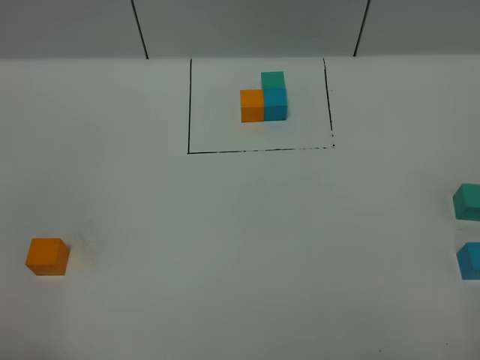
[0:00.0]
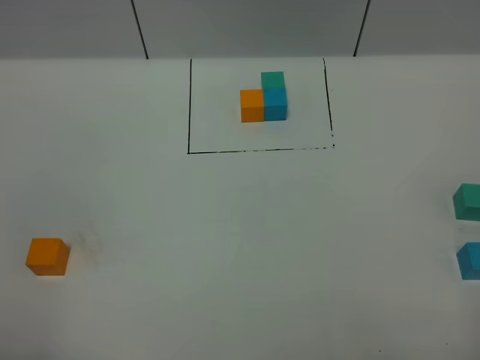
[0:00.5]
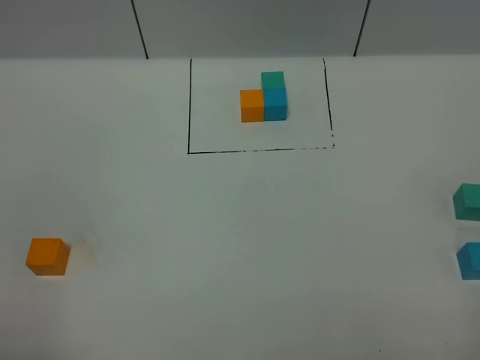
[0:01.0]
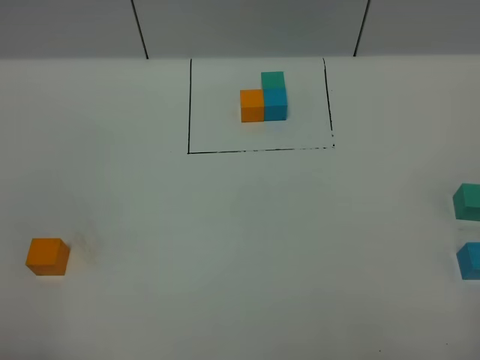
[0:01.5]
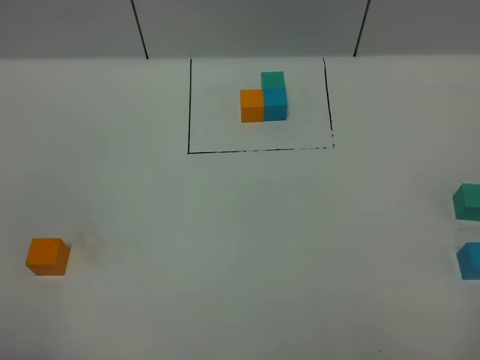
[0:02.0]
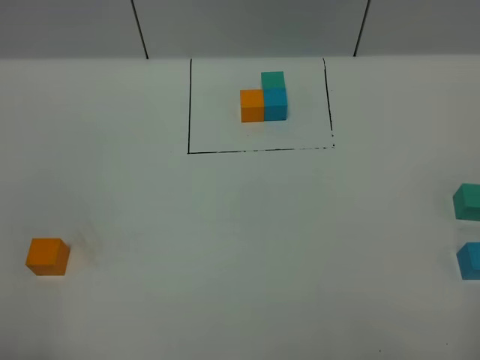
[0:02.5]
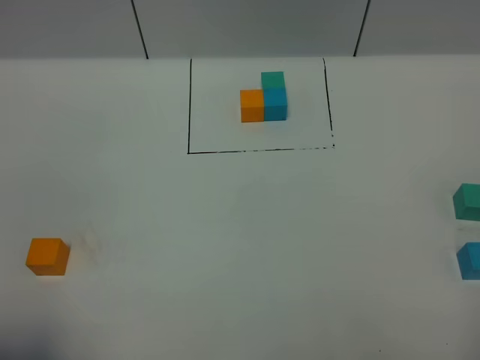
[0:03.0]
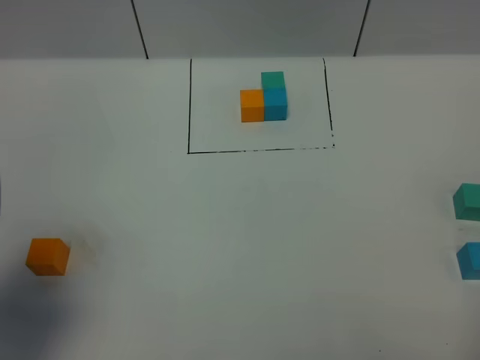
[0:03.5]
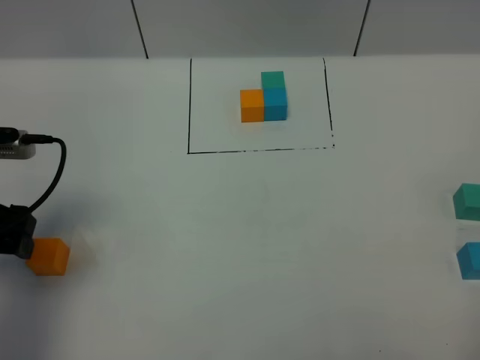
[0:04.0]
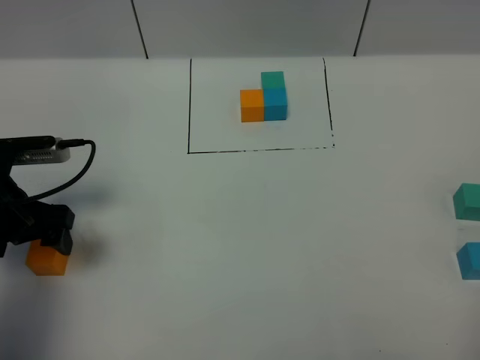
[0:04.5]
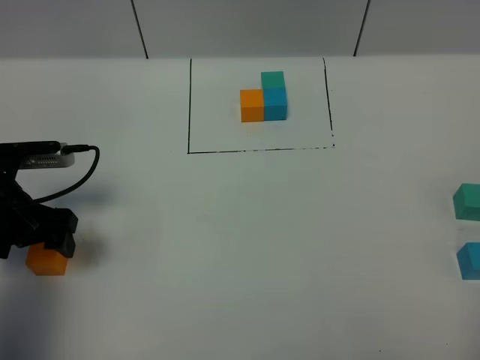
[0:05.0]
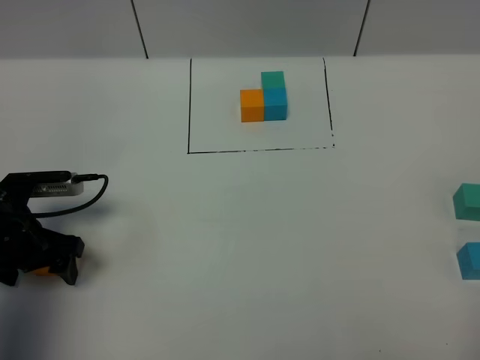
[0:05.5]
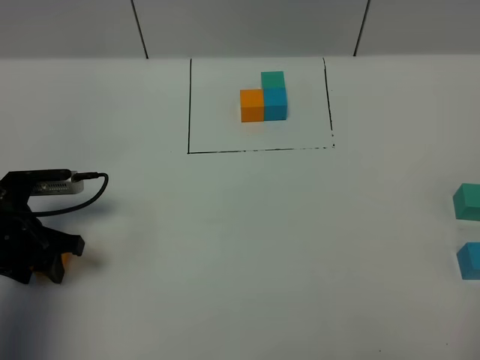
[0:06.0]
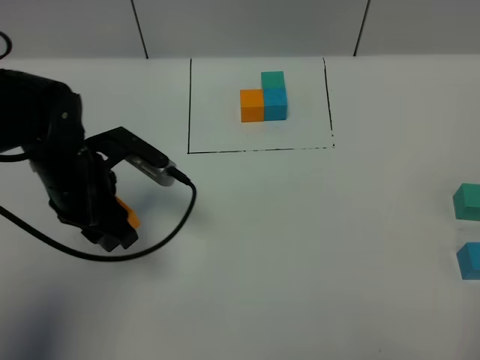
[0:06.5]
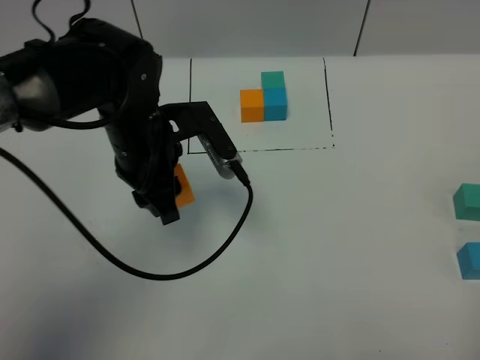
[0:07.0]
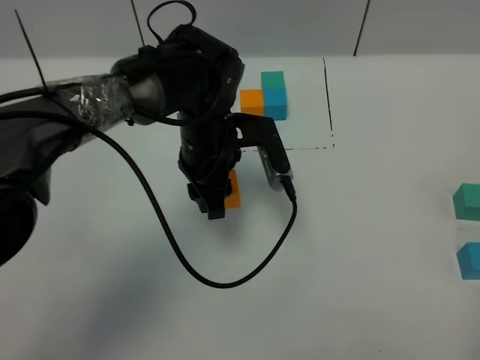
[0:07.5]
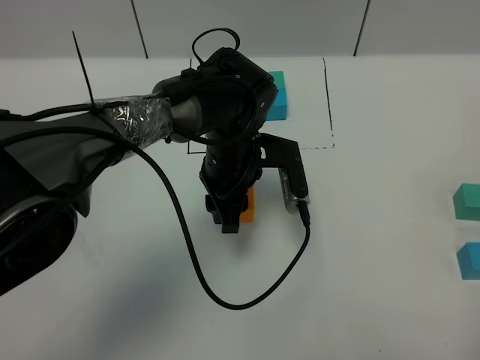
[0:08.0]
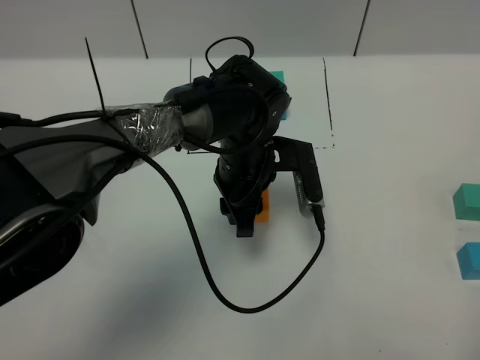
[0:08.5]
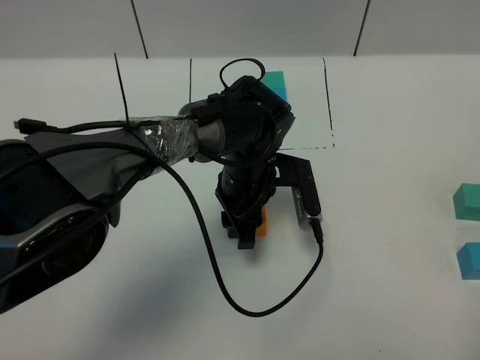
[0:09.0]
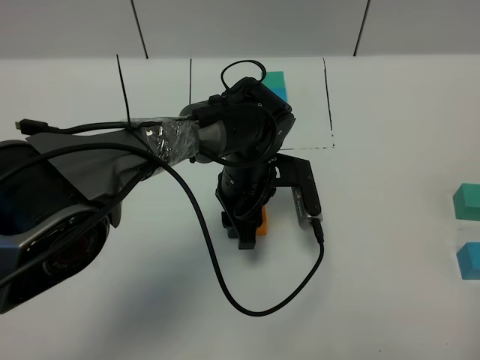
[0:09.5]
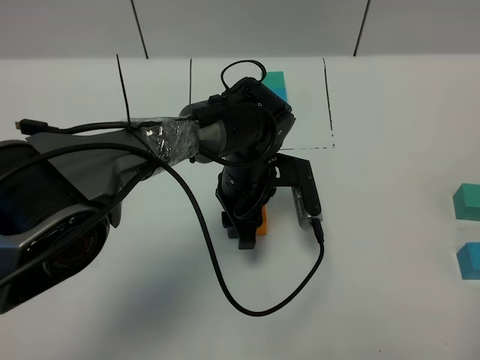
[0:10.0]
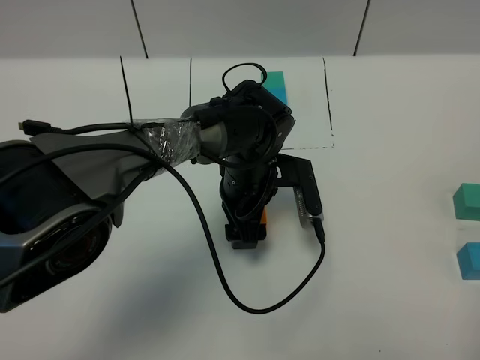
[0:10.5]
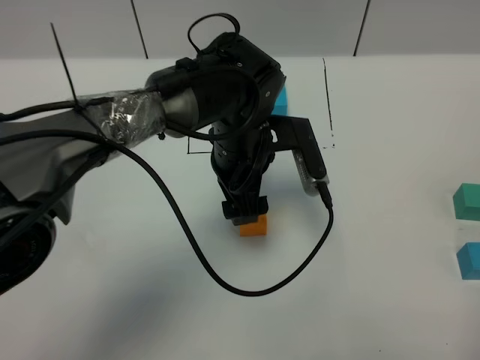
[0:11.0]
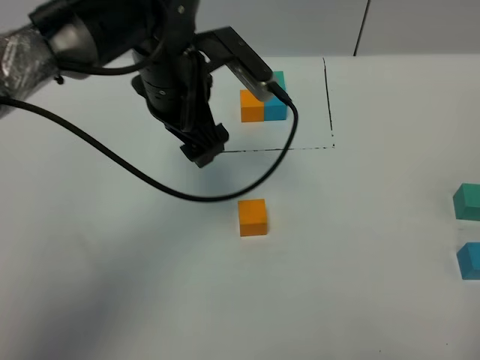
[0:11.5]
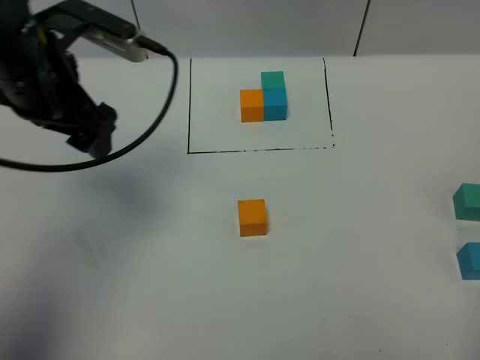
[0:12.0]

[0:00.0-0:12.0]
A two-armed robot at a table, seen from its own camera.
Task of the whole recording: According to the building block template in front, assemble the scattered blocks together.
Step, 0:00.0 to 0:10.0: Put the orange build block in the center of the table.
0:00.0 to 0:02.0: Both grippers stay put.
0:02.0 to 0:04.0: The left gripper shifts approximately 25 cm forward.
0:04.0 to 0:06.0: The left gripper shifts about 10 cm downward, and closes.
0:06.0 to 0:08.0: The left gripper shifts some 30 cm to the right.
0:08.0 to 0:10.0: The grippers move only a little.
0:10.0 to 0:12.0: The left gripper is displaced to the left and upward by roughly 30 cm, and opens.

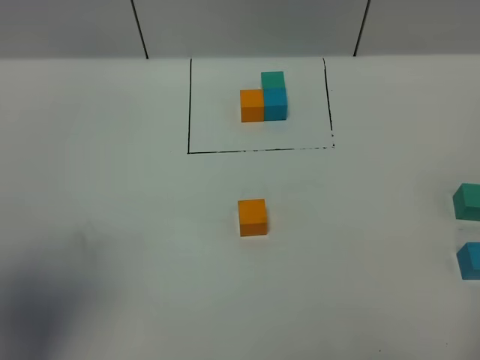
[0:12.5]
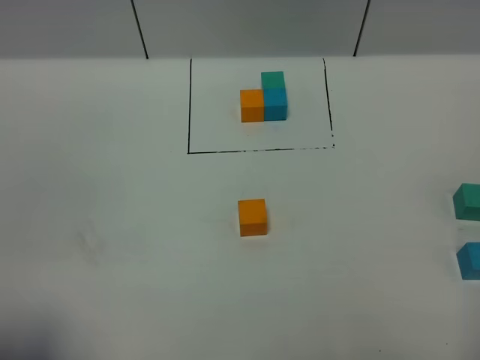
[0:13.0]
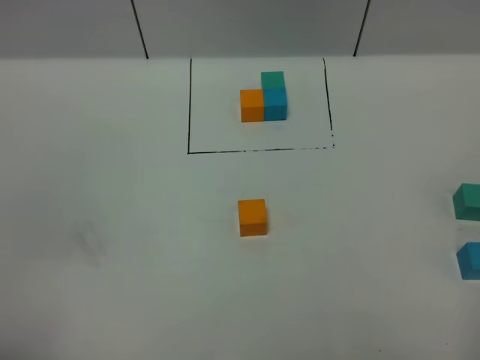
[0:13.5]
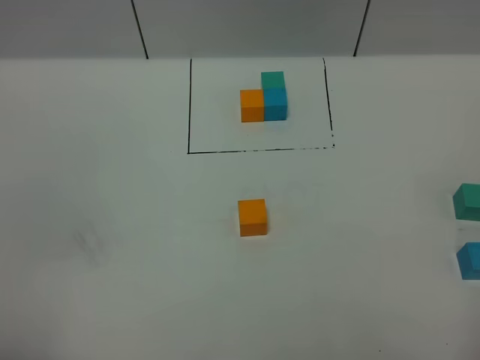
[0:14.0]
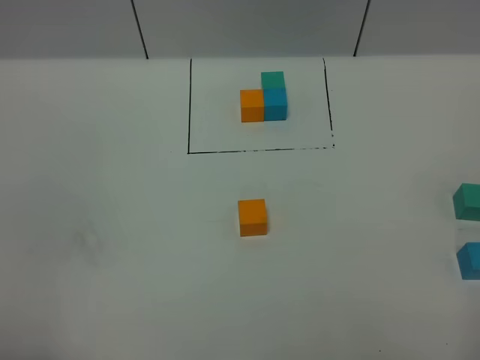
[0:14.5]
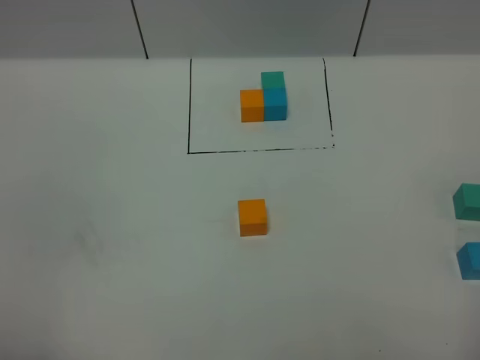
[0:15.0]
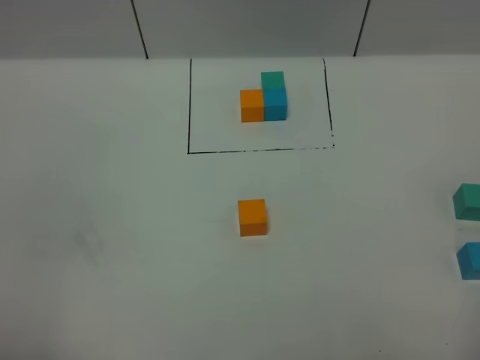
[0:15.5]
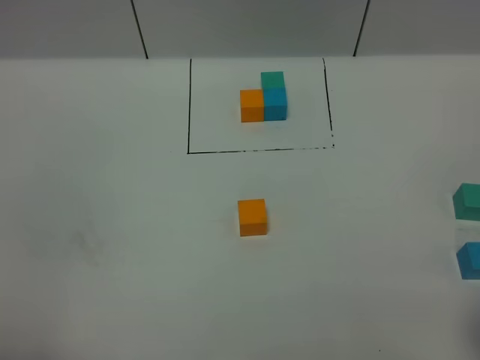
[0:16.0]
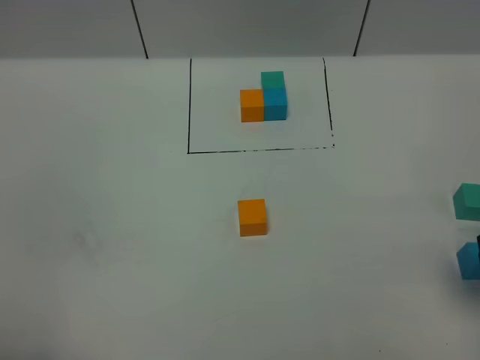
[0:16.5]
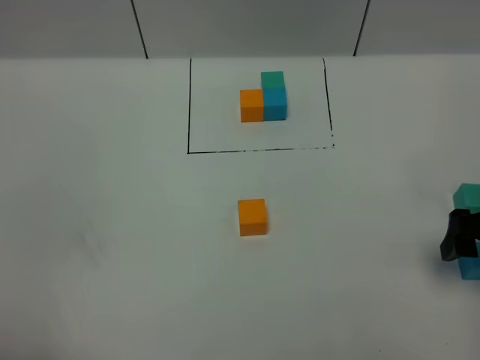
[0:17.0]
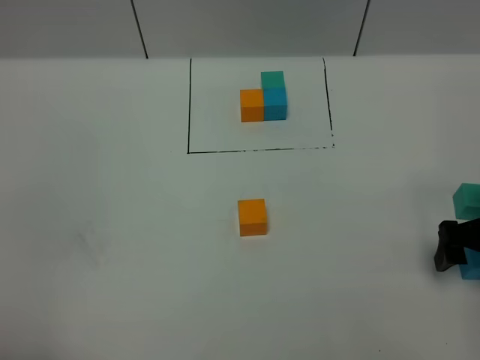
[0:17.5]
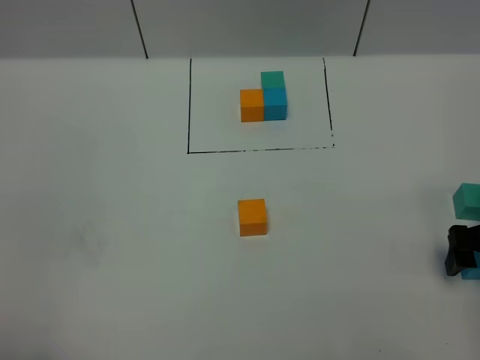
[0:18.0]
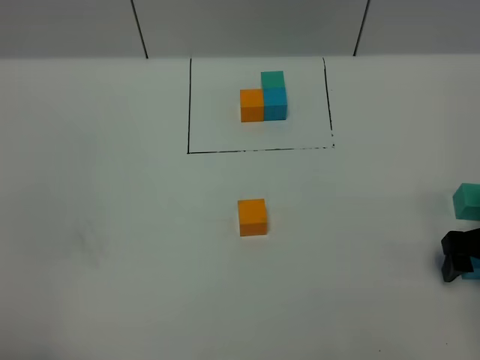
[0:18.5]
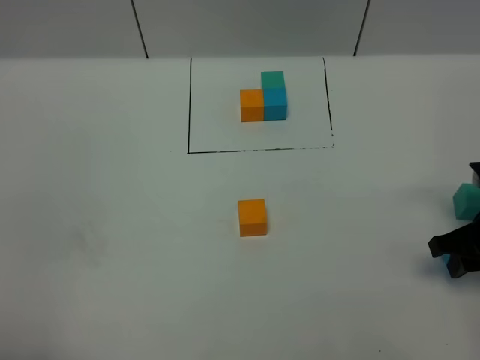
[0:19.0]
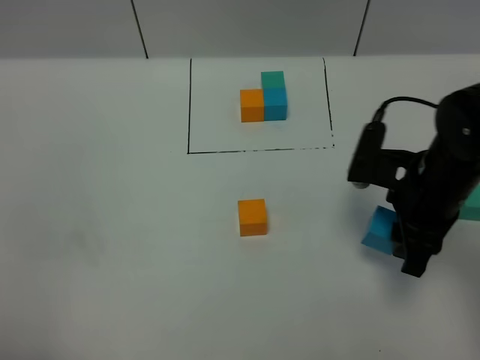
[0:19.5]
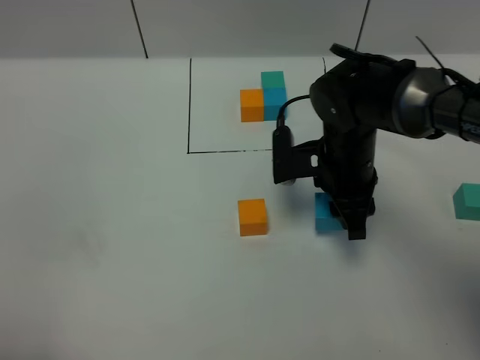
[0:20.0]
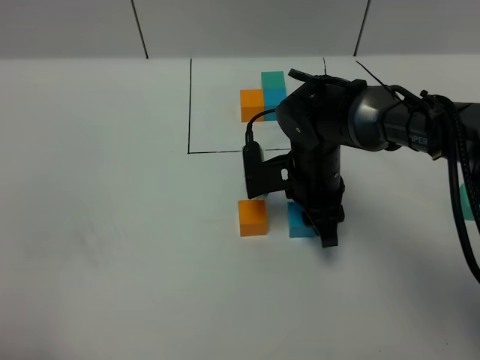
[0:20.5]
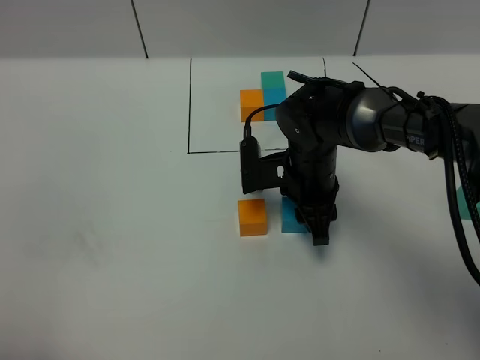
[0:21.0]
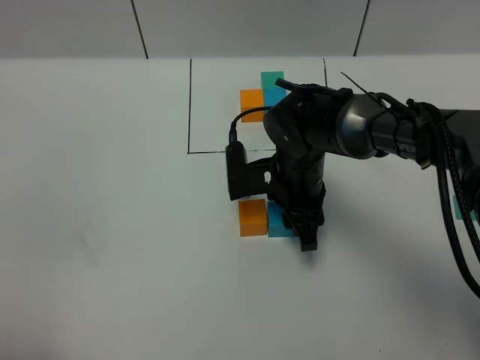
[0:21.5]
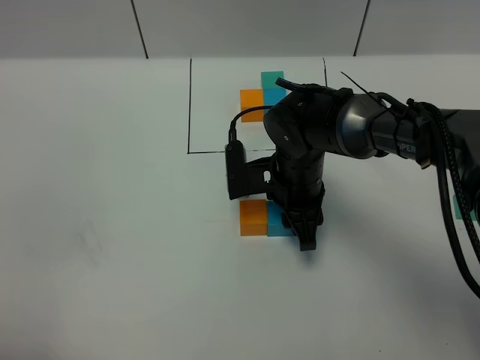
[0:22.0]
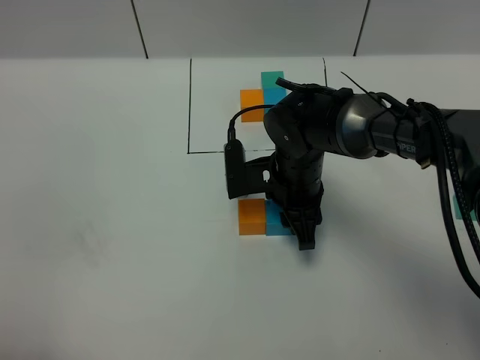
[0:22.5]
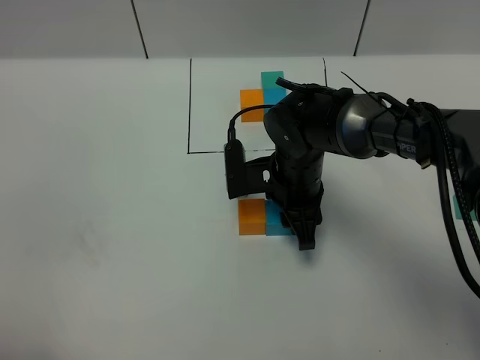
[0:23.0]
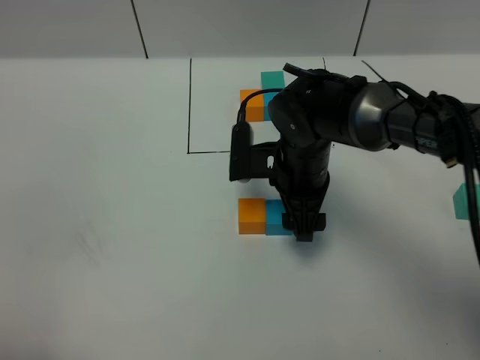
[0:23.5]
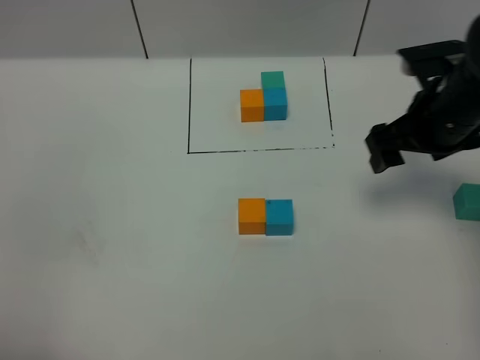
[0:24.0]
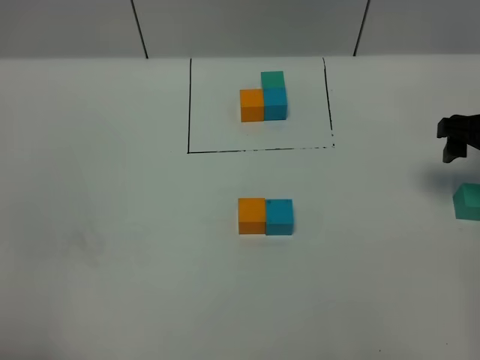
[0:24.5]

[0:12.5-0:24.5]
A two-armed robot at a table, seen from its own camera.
Task of the whole recording: According to the building block template in front, assemble the scattered blocks together.
Step, 0:12.5 to 0:23.0: Put the blue build block on the right of the orange build block.
0:12.5 to 0:14.5: The left gripper travels backward and downward by roughly 15 cm.
0:14.5 to 0:16.5: The right gripper heads forward, covering some 20 cm.
0:16.5 to 0:18.5: The right gripper travels downward and forward by about 15 cm.
0:18.5 to 0:20.5: The right gripper moves to the left and forward, about 25 cm, and closes its fingers.
0:20.5 to 0:22.5: There are only small adjustments of the grippers.
0:22.5 to 0:24.5: The right gripper moves to the right, approximately 25 cm, and opens.

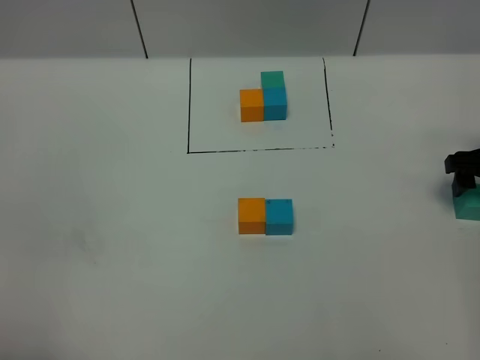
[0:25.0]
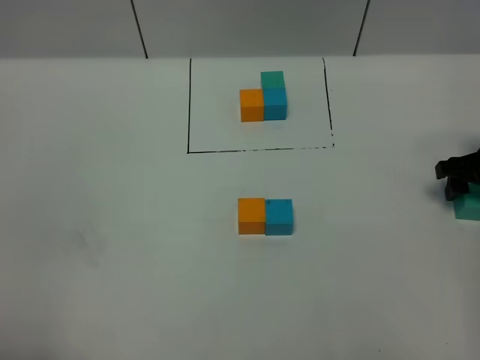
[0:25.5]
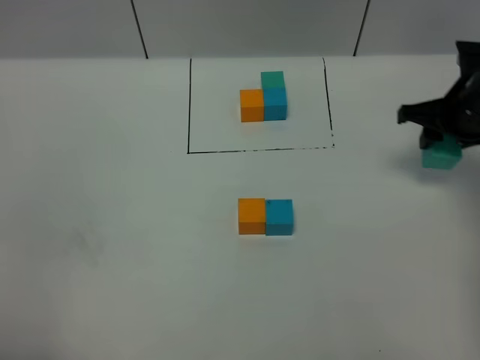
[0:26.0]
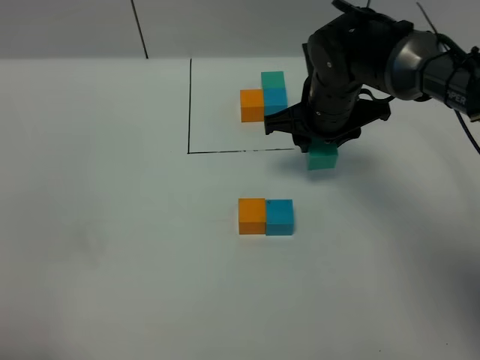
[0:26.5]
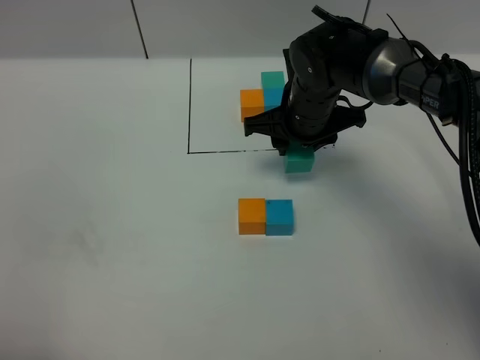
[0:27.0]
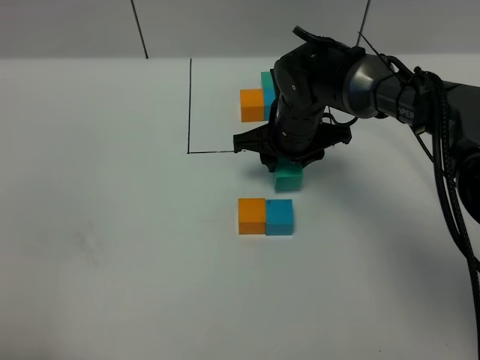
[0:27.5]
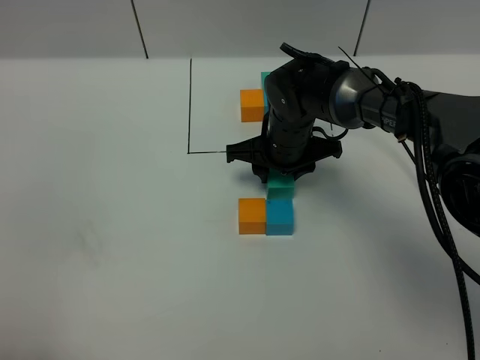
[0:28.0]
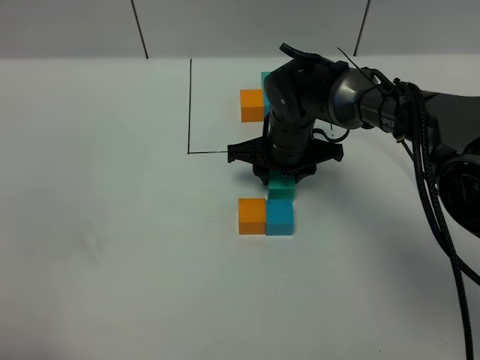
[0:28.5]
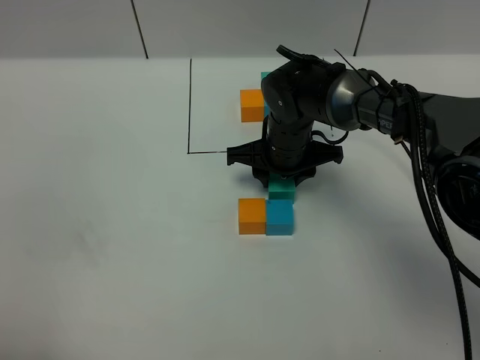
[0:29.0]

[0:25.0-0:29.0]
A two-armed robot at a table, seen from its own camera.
Task of the whole recording: According to the building block template in front, assemble the scattered blocks together.
0:25.0 to 0:27.0: The right gripper moves to the left, approximately 25 cm, and closes up.
0:27.0 to 0:29.0: The right gripper shifts roughly 5 cm downward.
